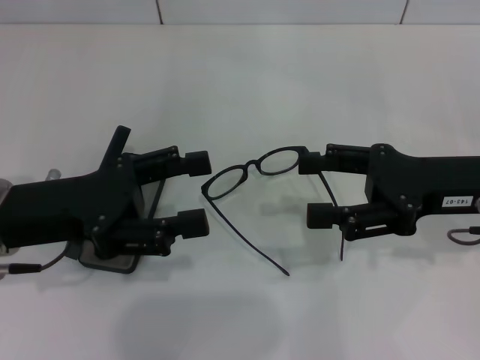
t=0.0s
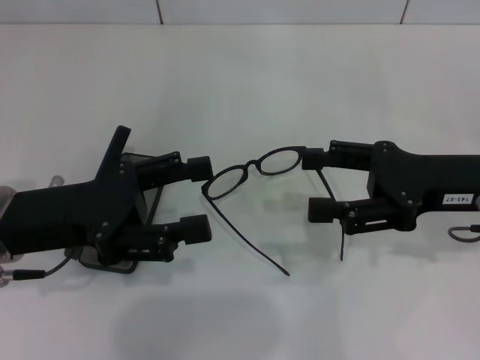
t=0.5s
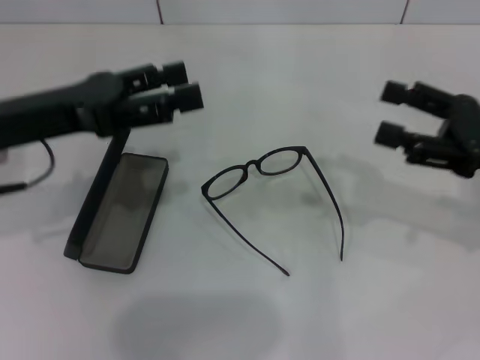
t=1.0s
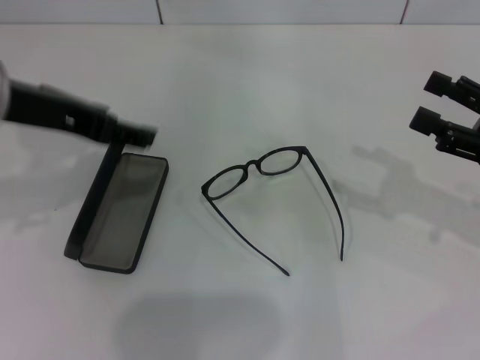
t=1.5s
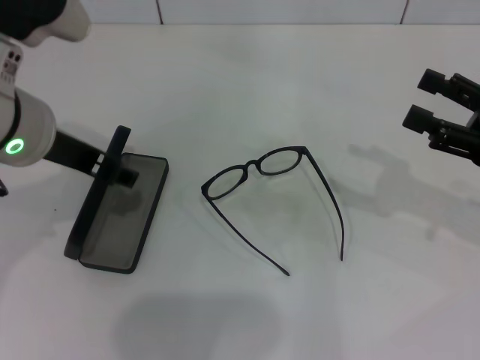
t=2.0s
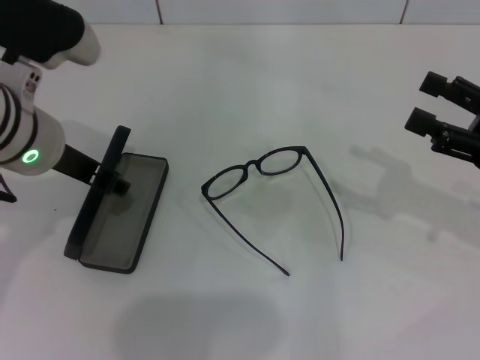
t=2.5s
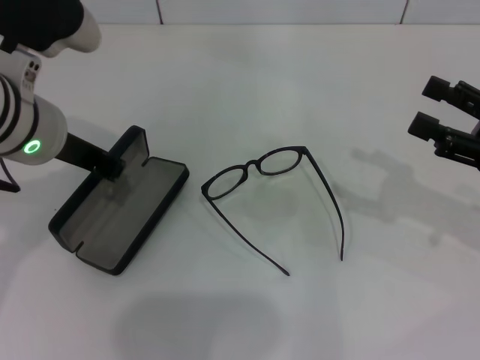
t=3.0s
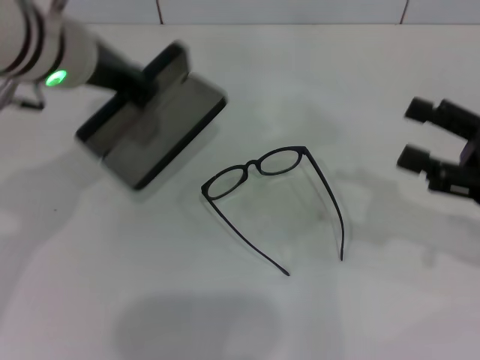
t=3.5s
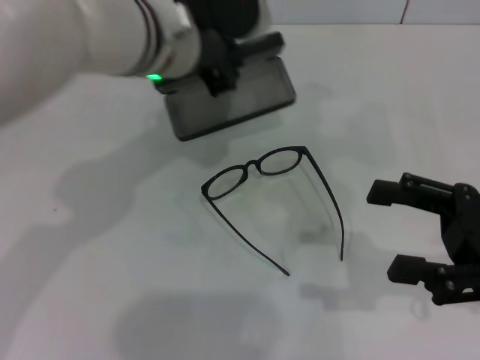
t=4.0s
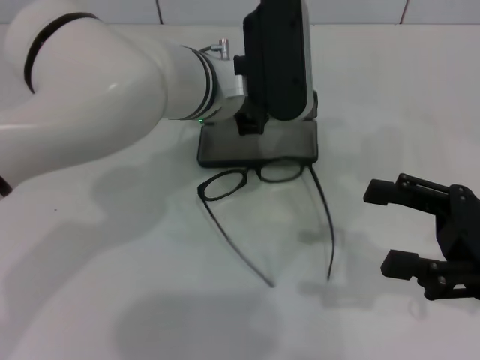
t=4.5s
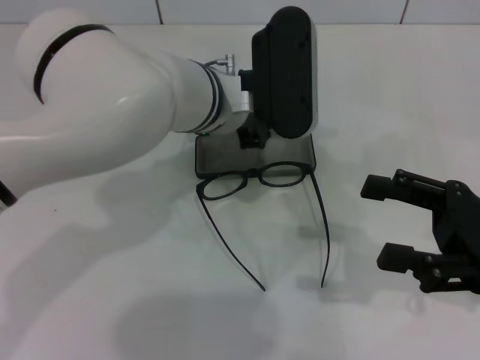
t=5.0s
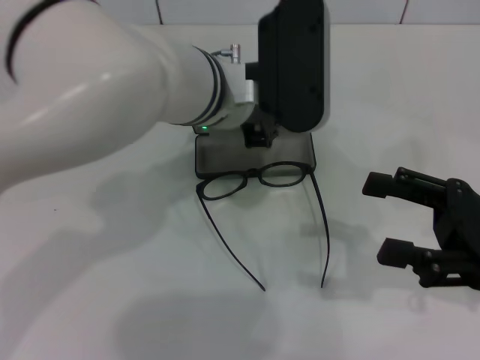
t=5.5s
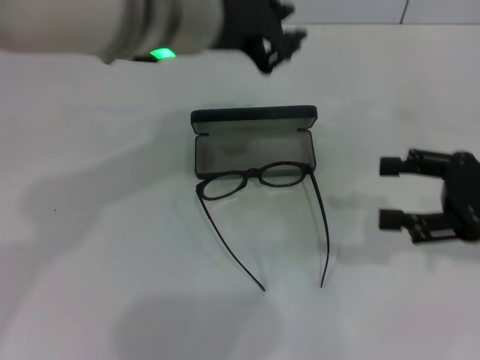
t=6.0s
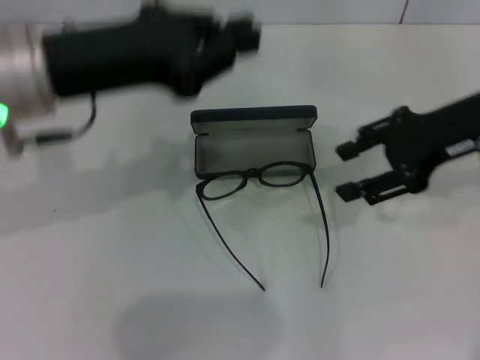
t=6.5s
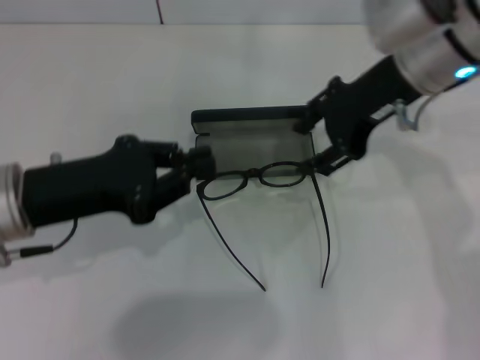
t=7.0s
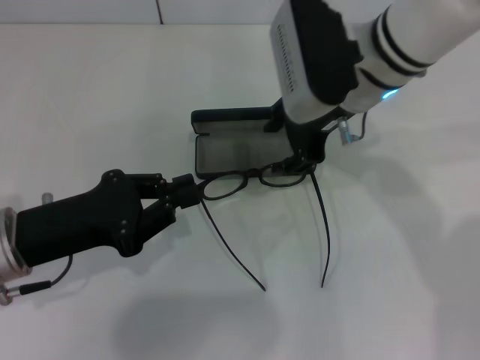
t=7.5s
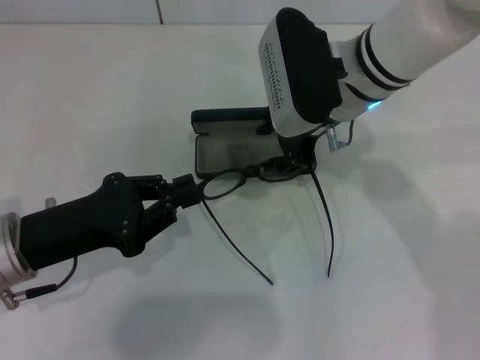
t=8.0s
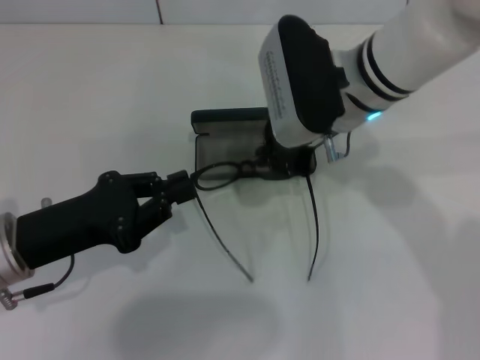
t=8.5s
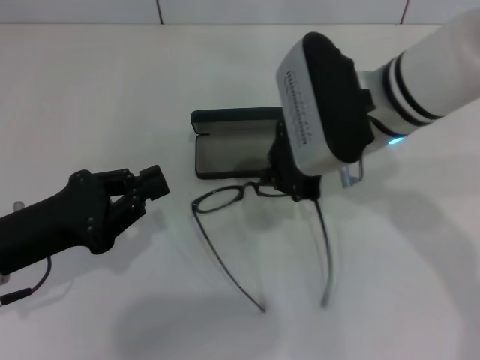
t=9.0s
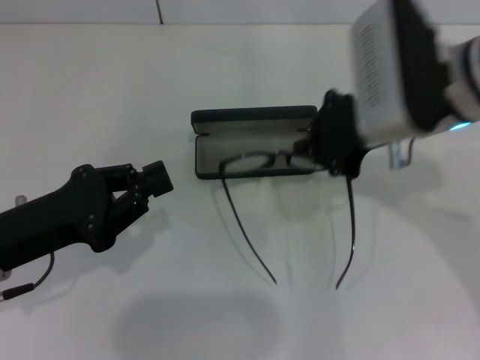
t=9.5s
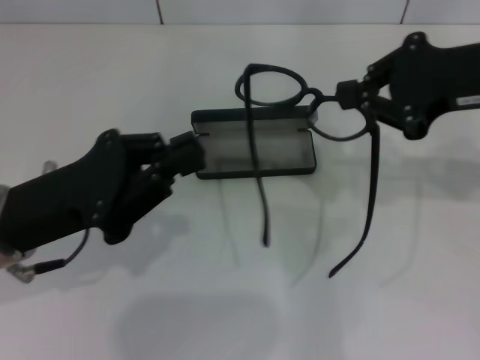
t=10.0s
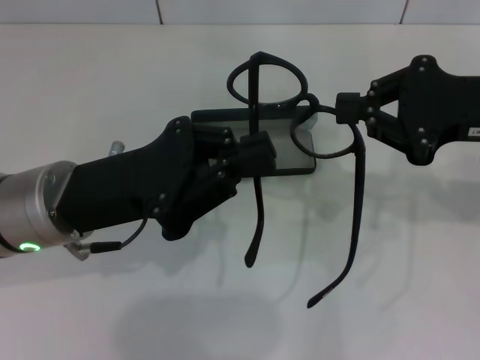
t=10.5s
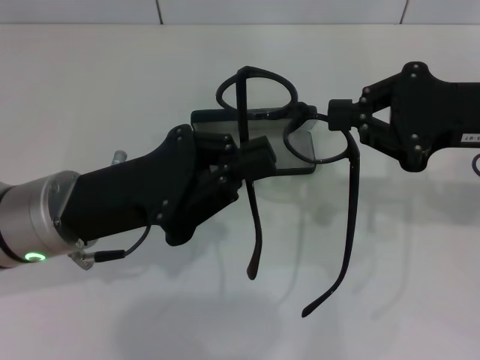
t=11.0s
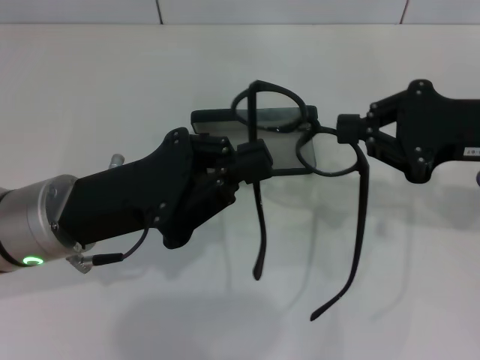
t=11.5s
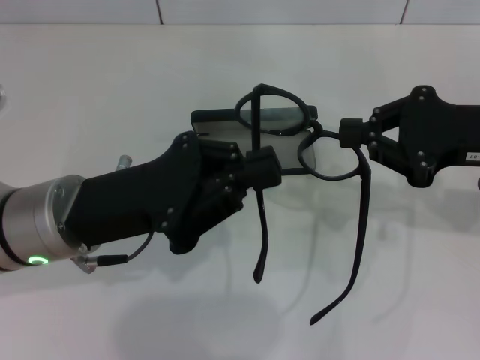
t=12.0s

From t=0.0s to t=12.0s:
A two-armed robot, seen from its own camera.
Step, from t=0.0s to t=2.5s: Grab the glasses case with your left hand.
Step, from t=3.0s to t=4.5s: Place the glasses case in the center of the table with your left hand.
From t=0.0s to t=2.0s: The right gripper shifts roughly 10 cm to the right. The left gripper heads upward and to the right, covering about 10 cm.
From t=2.0s to t=4.0s: The left gripper shifts approximately 10 cm to the right and forward, and closes up; the right gripper travels backward by approximately 5 cm.
From t=4.0s to t=6.0s: The right gripper ends up approximately 5 cm from where it was, while the left gripper moves upward, some 5 cm.
From t=6.0s to t=8.0s: The right gripper shifts some 25 cm to the left and forward; the left gripper travels downward, to the left and backward by approximately 25 cm.
From t=8.0s to t=10.0s: The right gripper is displaced to the right, upward and backward by approximately 20 cm, and closes.
From t=10.0s to t=12.0s: The left gripper ends up some 5 cm from where it was, while the right gripper is displaced downward by about 5 cm.

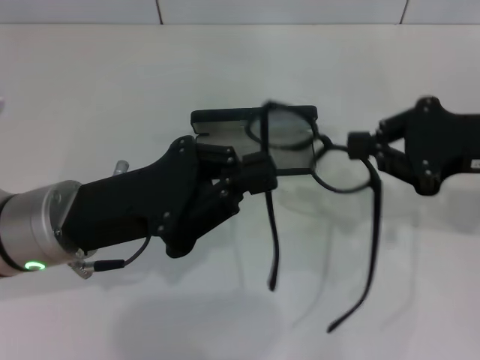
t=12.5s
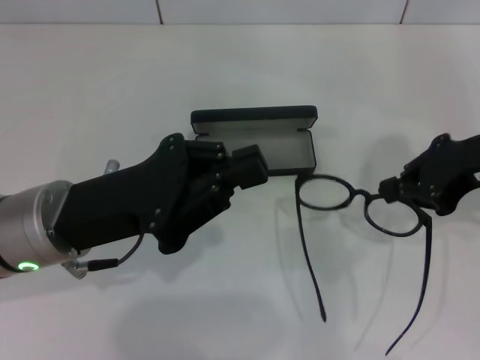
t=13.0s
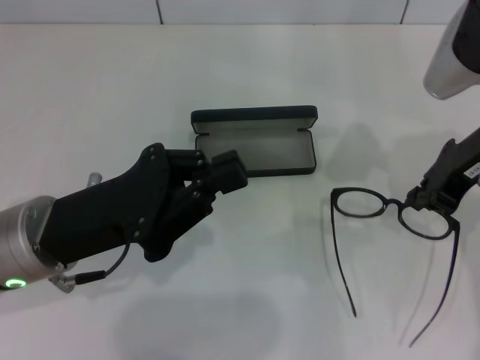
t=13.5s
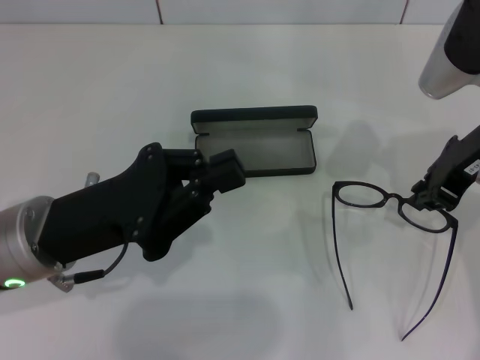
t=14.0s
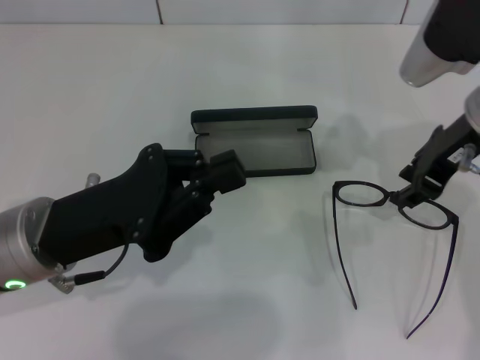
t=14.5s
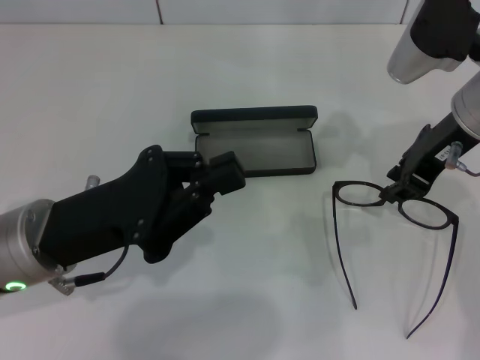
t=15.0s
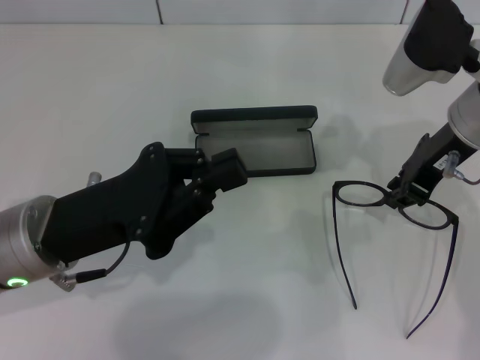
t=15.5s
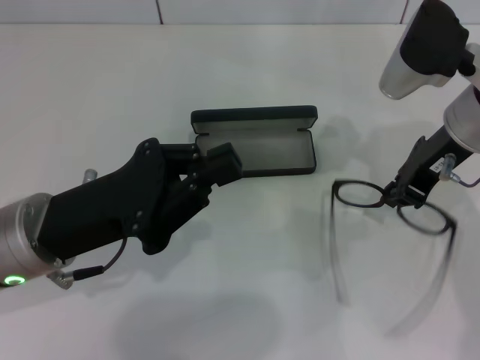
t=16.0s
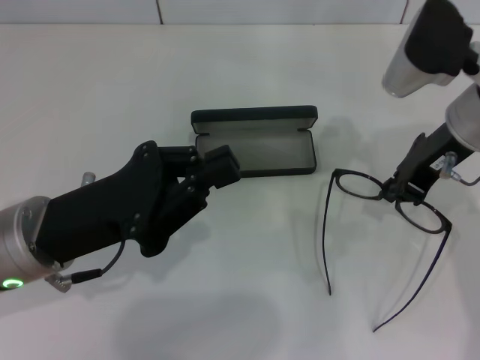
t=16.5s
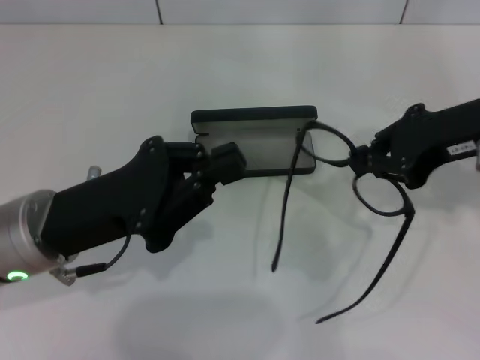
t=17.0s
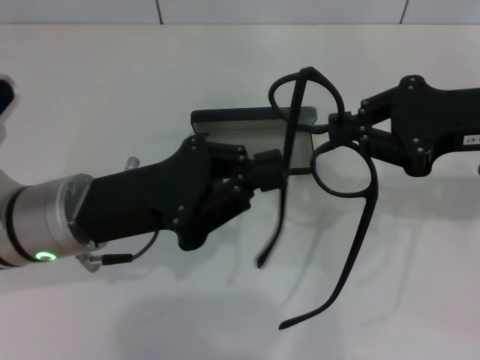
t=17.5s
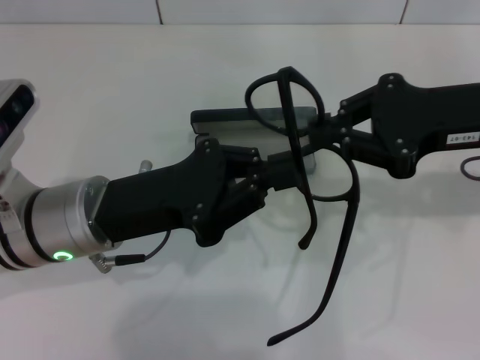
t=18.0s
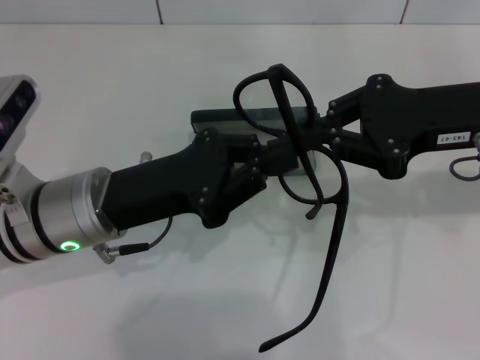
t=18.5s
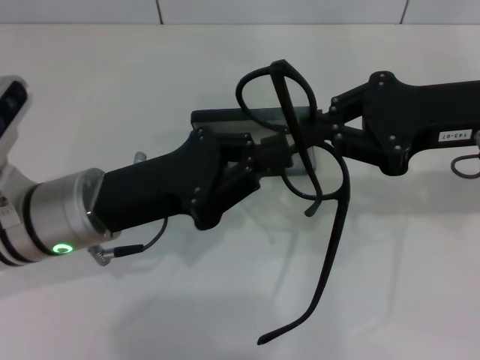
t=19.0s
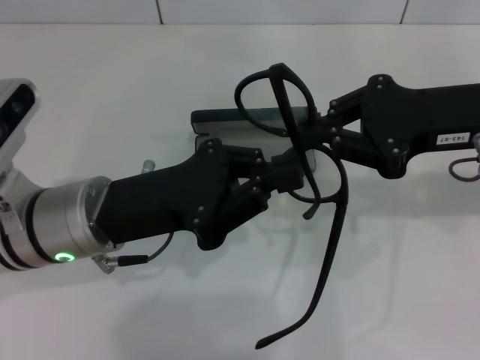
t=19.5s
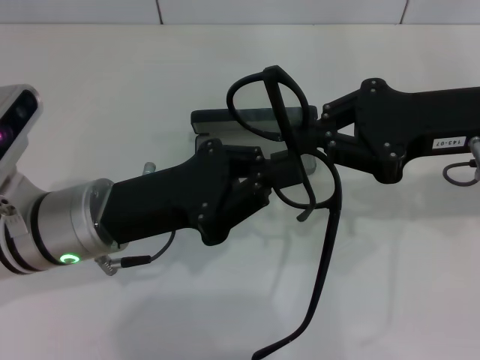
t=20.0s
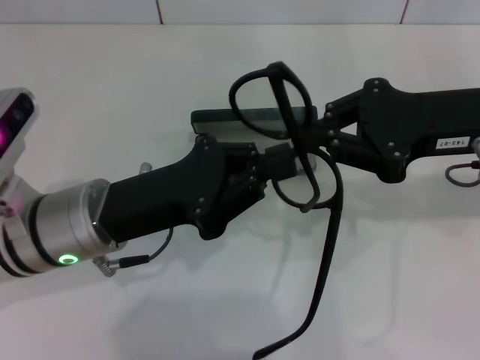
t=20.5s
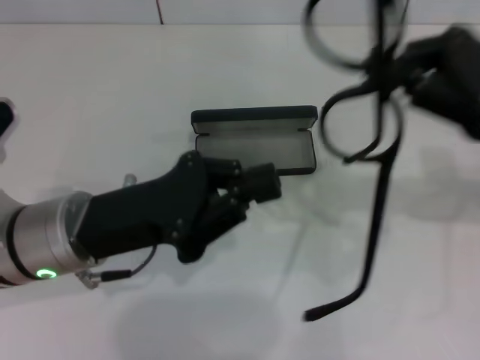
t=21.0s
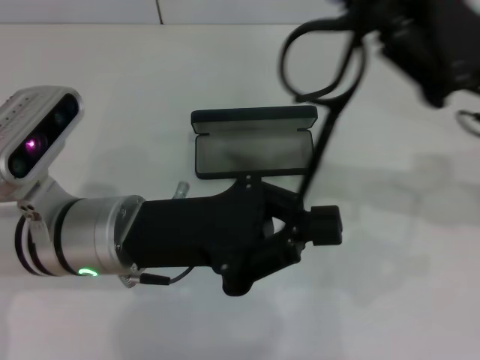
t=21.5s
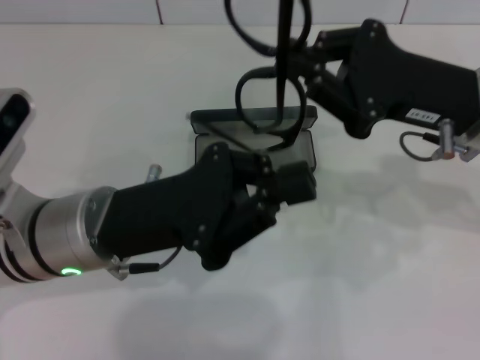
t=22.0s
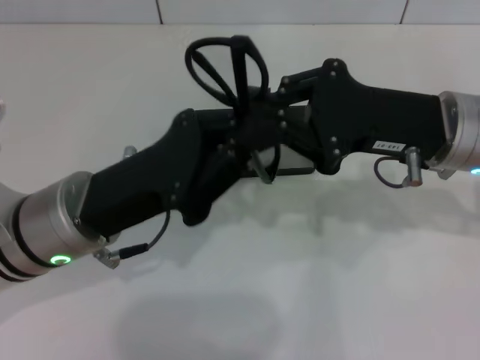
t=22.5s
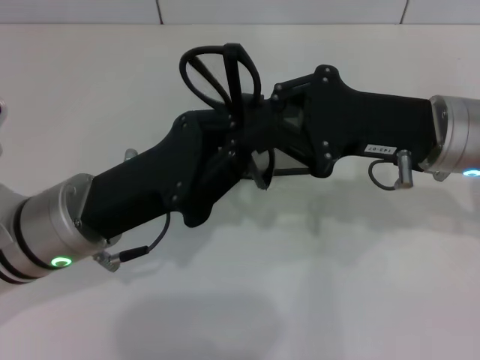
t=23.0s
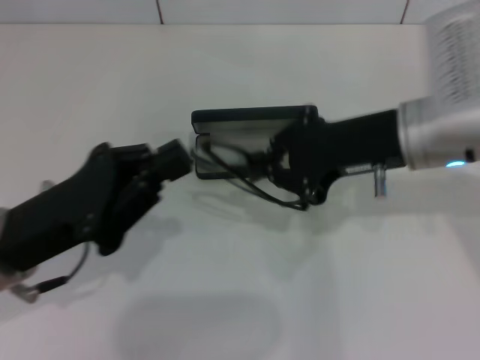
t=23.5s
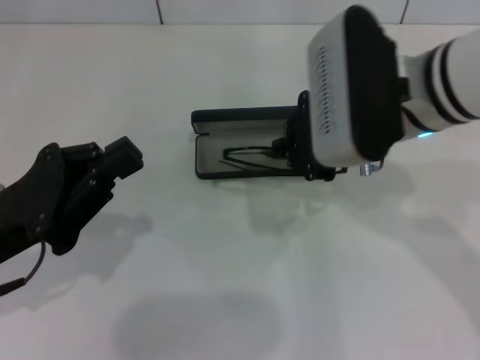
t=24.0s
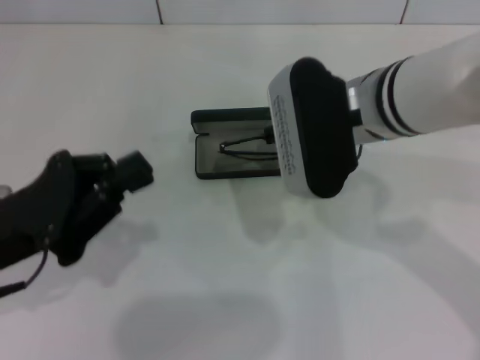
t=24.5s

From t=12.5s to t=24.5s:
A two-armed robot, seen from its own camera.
Step, from t=12.5s to t=16.0s: Grab the eyeglass frame with your right hand.
Step, from t=16.5s to t=22.5s: Lift the glasses with your right hand.
From t=12.5s to t=14.5s: The right gripper travels to the left and forward by some 10 cm, and opens.
From t=14.5s to t=16.5s: The right gripper closes.
From t=16.5s to t=18.5s: The right gripper ends up some 5 cm from where it was.
From t=18.5s to t=20.5s: Both grippers stay about where they are.
From t=20.5s to t=22.5s: The right gripper shifts by some 5 cm.
From t=22.5s to t=24.5s: Both grippers move to the left, roughly 10 cm.

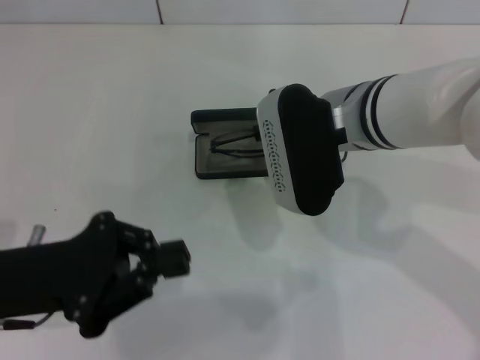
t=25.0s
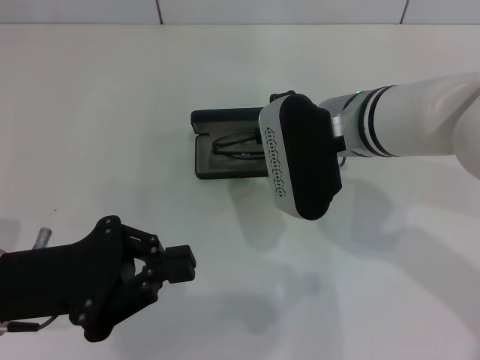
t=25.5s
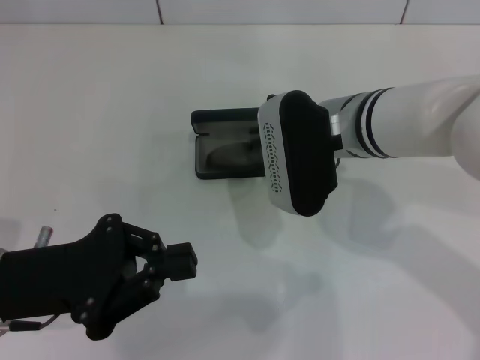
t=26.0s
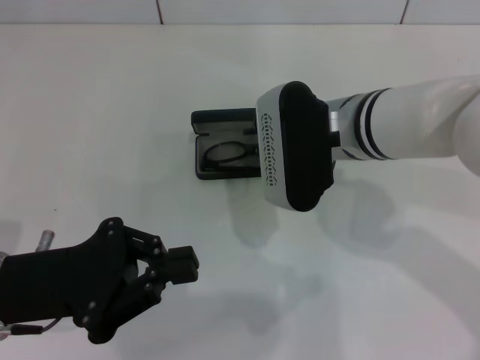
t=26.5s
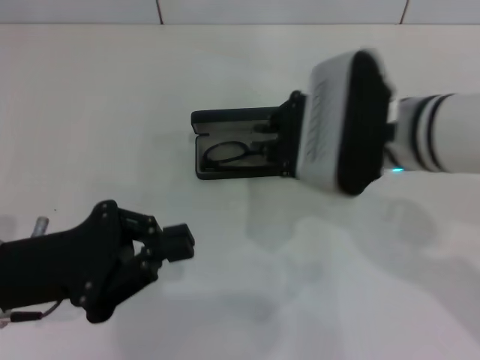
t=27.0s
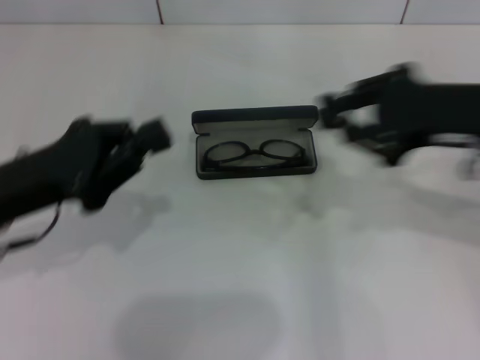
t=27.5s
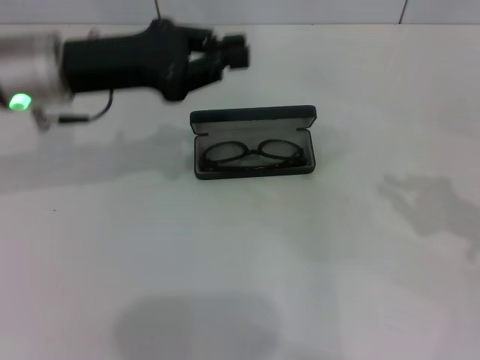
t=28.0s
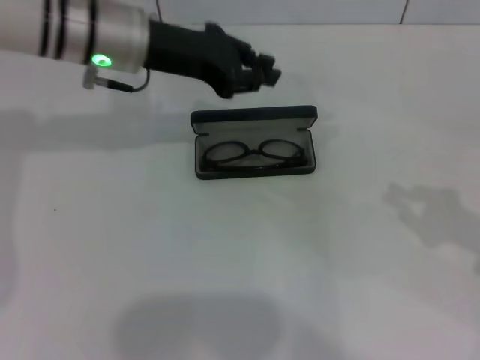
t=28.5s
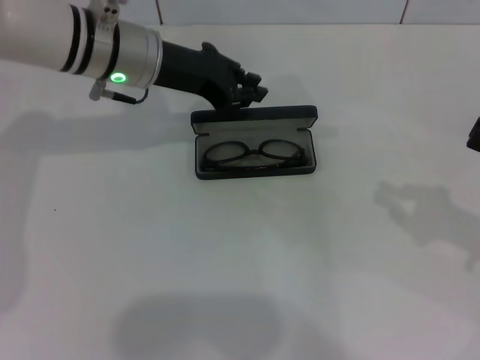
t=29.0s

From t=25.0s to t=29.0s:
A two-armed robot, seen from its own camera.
From t=27.0s to t=29.0s: The right gripper travels to the right by roughly 25 cm, while the left gripper is displaced forward and to the right by roughly 25 cm.
